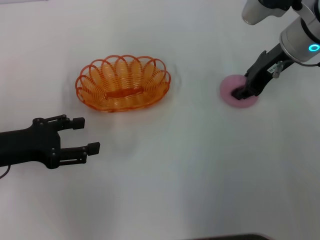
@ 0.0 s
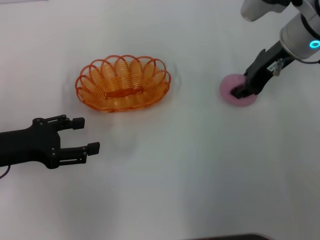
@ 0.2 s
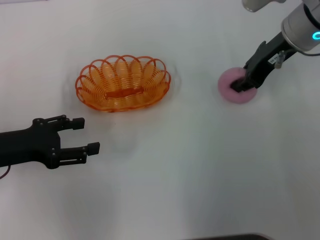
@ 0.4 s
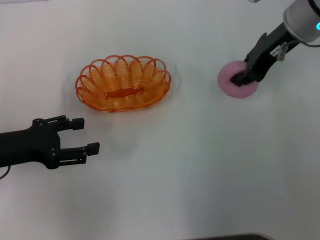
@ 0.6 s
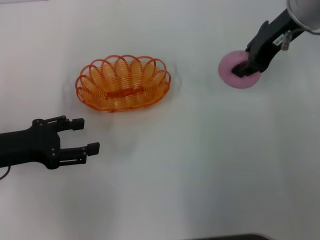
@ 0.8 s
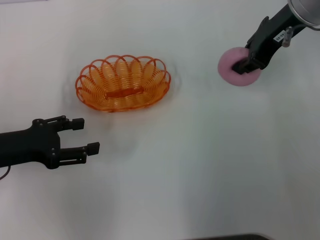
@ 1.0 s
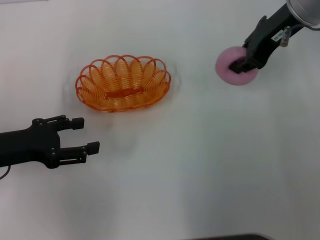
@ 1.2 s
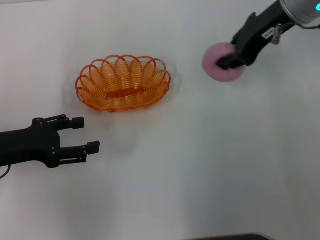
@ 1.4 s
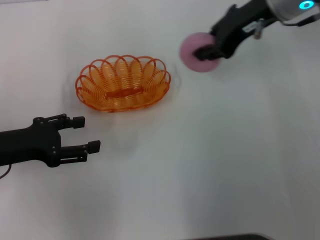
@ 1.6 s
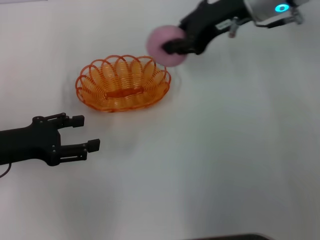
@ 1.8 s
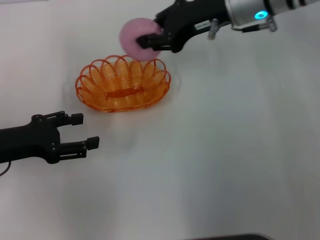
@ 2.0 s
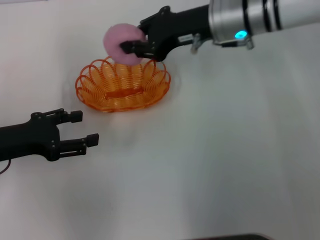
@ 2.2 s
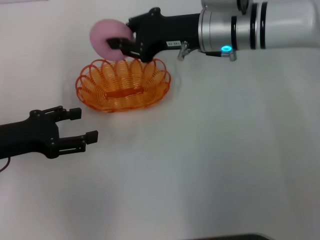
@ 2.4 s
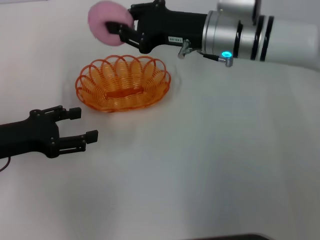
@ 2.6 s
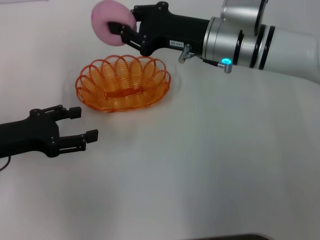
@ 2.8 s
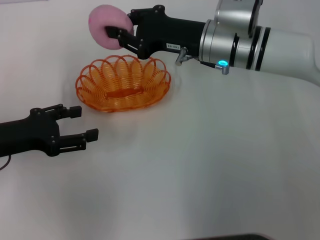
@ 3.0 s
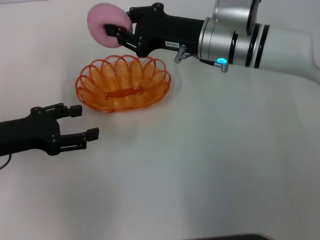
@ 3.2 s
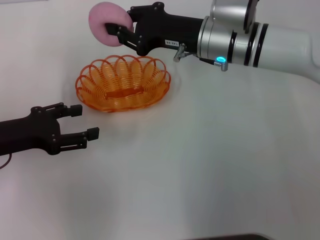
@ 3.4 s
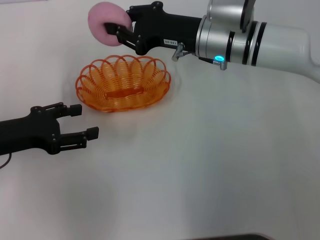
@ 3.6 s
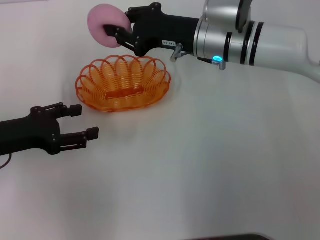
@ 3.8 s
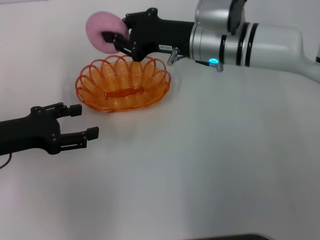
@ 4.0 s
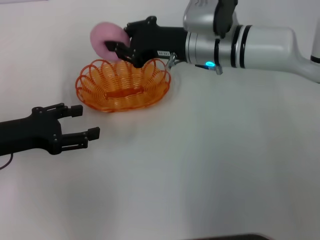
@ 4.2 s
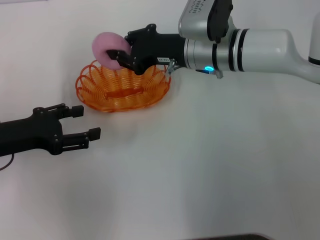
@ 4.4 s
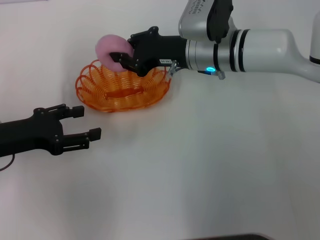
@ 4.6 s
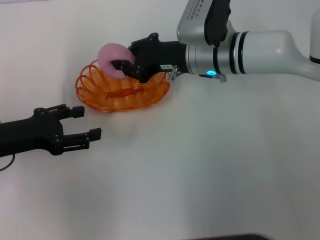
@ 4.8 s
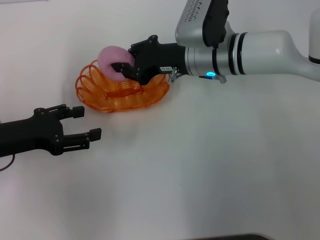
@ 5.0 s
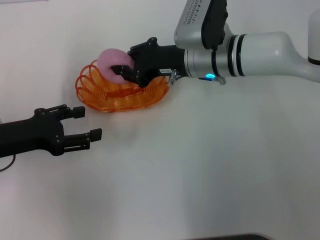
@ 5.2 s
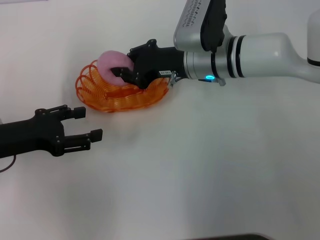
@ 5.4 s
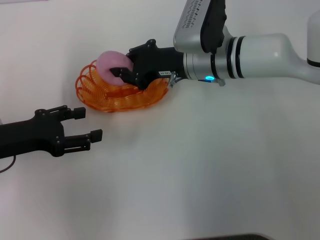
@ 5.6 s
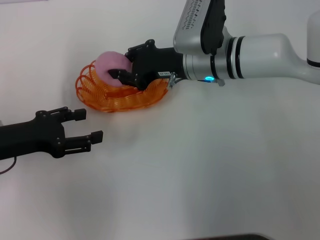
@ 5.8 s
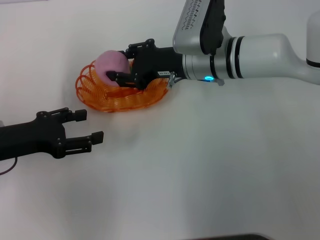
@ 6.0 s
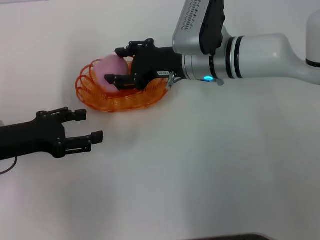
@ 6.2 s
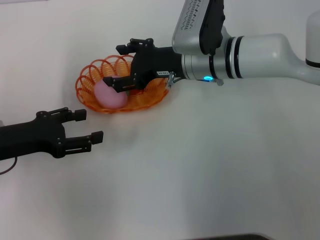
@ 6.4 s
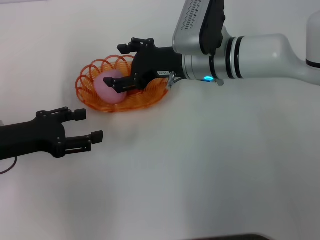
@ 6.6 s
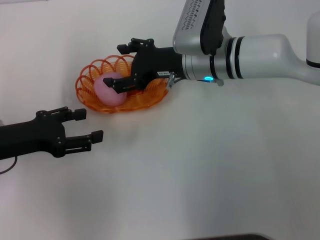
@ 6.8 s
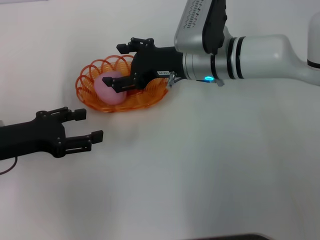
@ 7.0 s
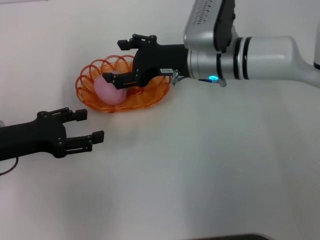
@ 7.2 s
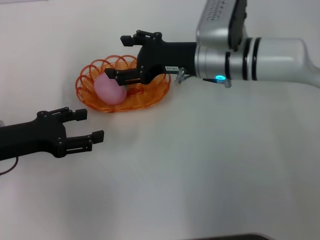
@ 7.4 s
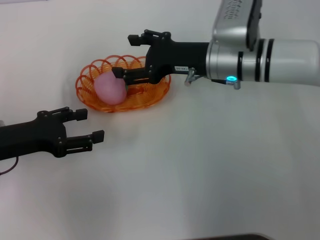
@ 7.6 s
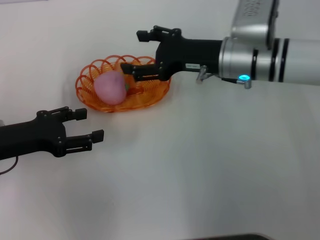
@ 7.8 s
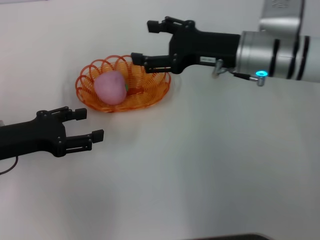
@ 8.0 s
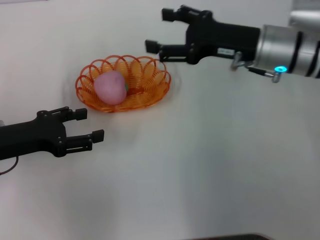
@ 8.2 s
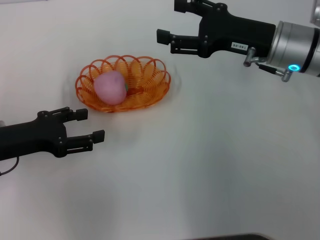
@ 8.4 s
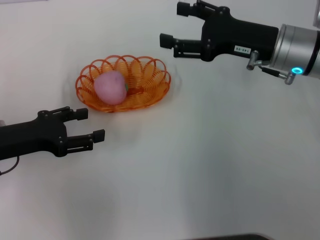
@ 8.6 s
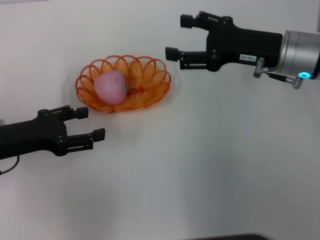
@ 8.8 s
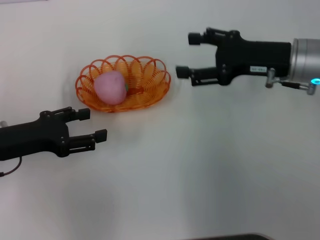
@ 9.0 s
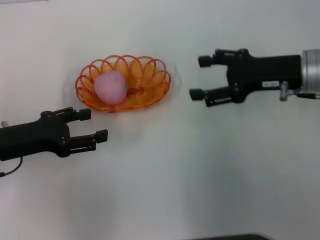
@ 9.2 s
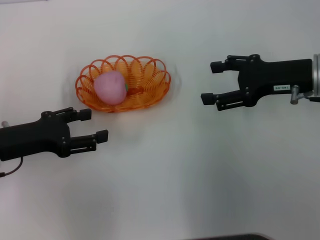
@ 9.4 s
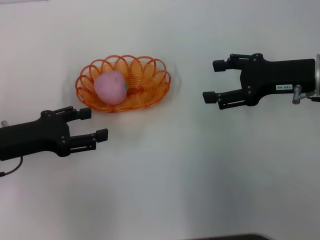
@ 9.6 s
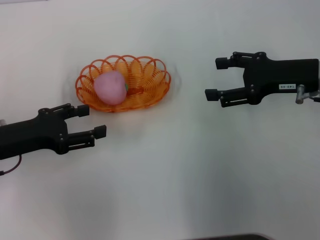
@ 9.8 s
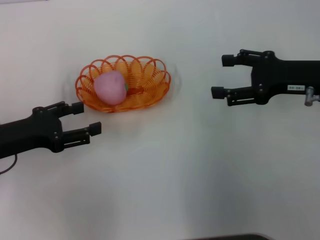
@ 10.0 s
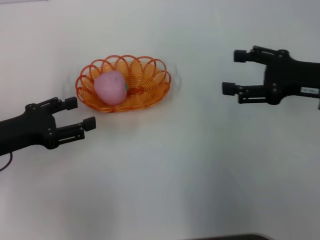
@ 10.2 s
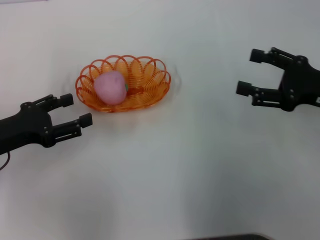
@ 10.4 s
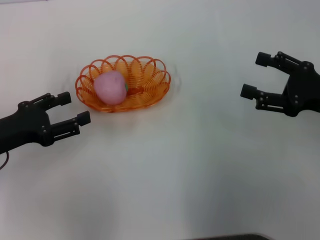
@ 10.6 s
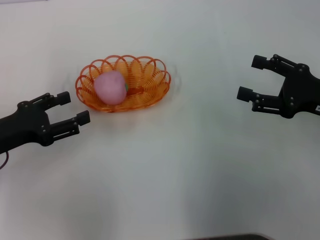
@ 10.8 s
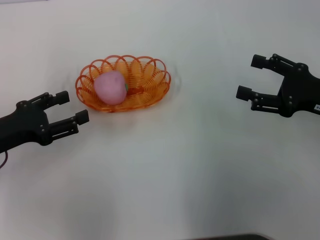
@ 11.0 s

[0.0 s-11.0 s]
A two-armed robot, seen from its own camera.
Step, 1.2 to 7.8 s: Place the peach into the basket with the right gripper.
0.0 to 1.6 s: The right gripper moves upward, about 5 cm.
1.6 to 3.2 s: The right gripper shifts roughly 10 cm downward and to the left.
3.2 to 4.8 s: The grippers move only a little.
4.8 to 6.2 s: The right gripper opens.
6.2 to 7.8 s: The right gripper changes place by about 5 cm, and opens up.
7.8 to 9.4 s: The right gripper travels to the right by approximately 10 cm.
9.4 to 11.0 s: The right gripper is displaced backward by some 5 cm.
